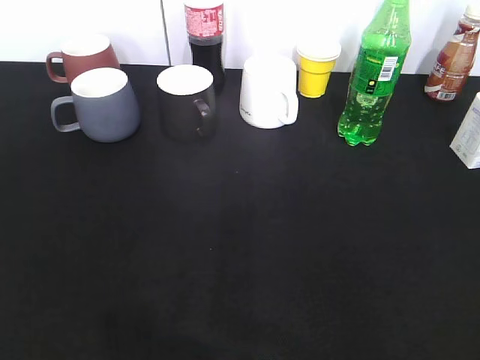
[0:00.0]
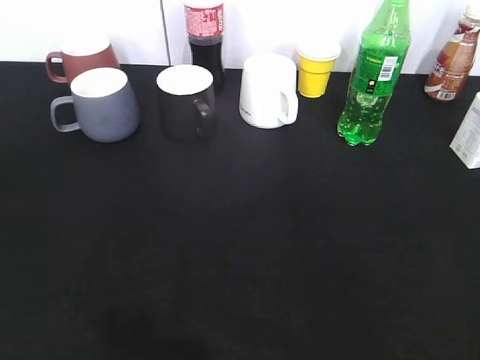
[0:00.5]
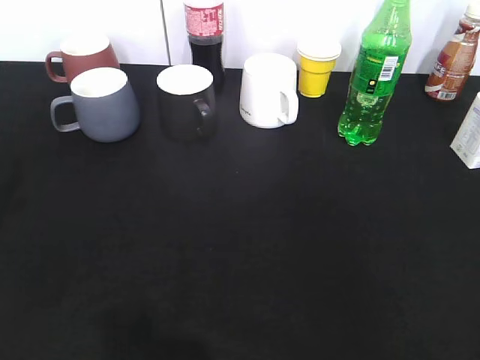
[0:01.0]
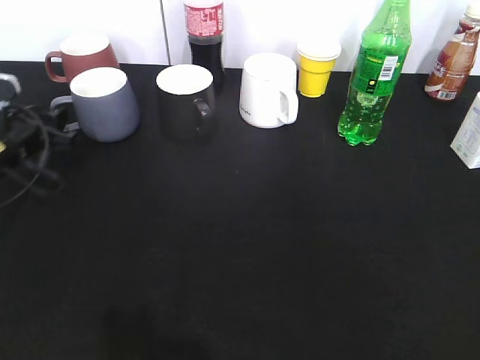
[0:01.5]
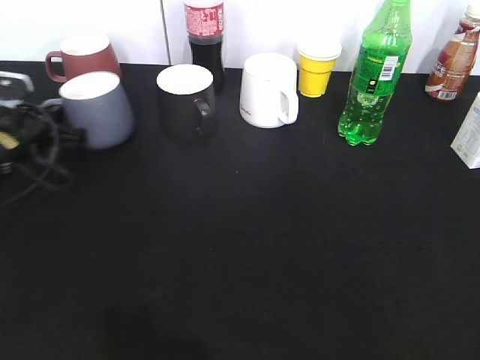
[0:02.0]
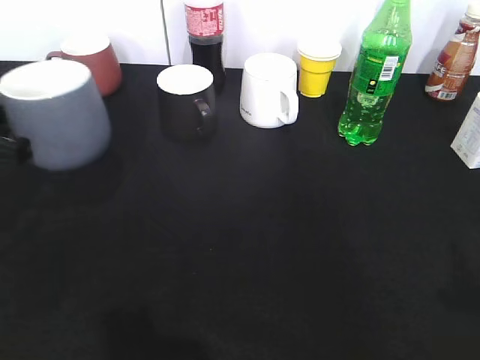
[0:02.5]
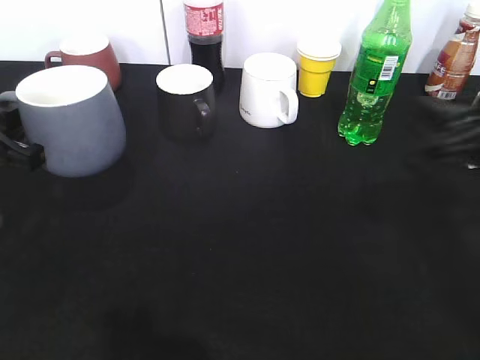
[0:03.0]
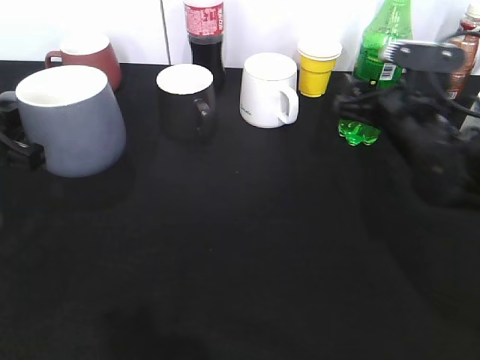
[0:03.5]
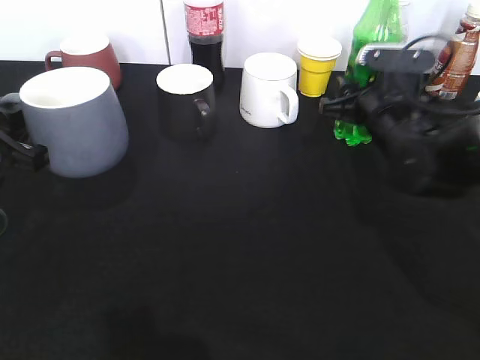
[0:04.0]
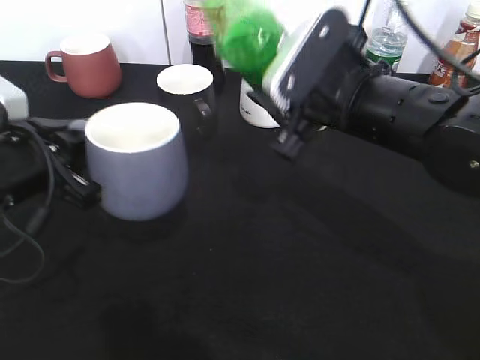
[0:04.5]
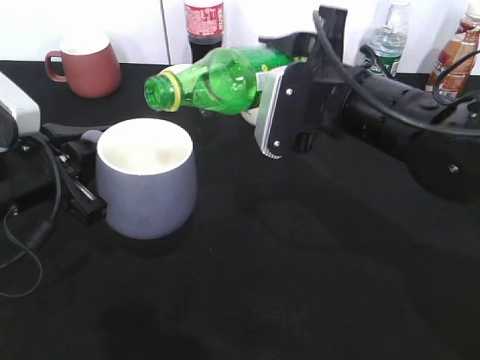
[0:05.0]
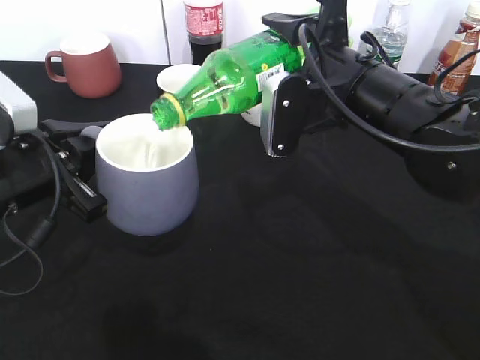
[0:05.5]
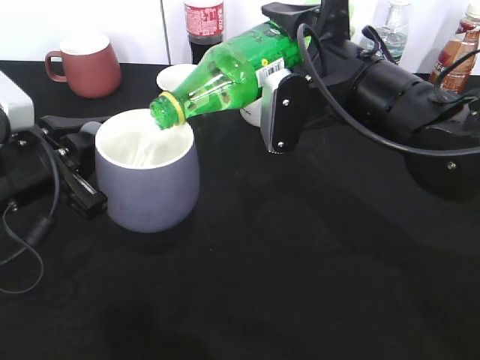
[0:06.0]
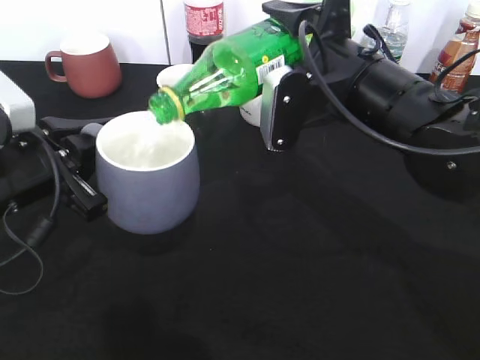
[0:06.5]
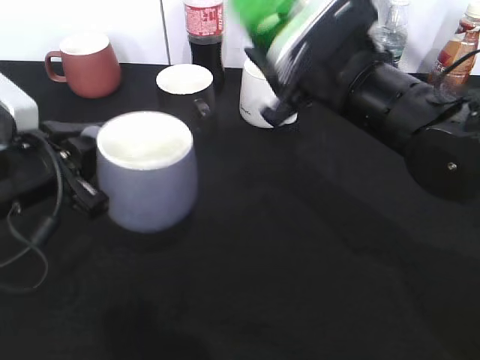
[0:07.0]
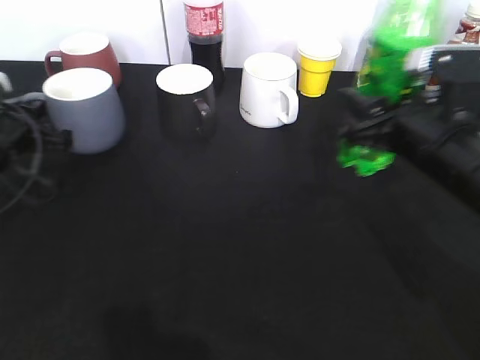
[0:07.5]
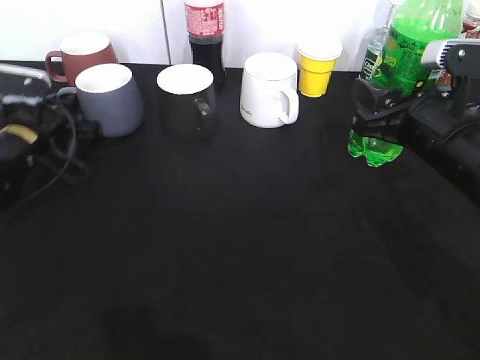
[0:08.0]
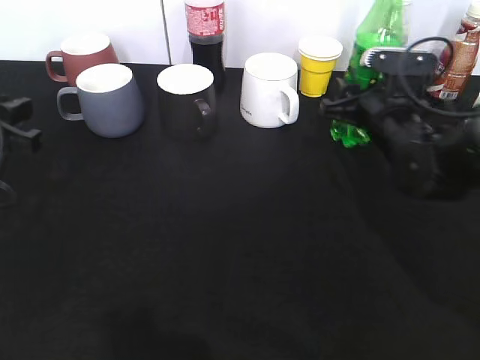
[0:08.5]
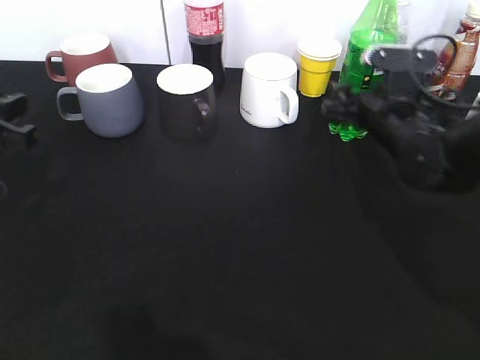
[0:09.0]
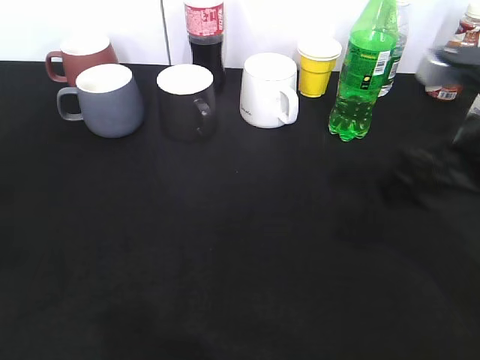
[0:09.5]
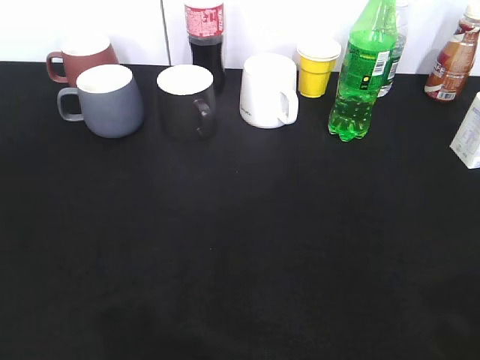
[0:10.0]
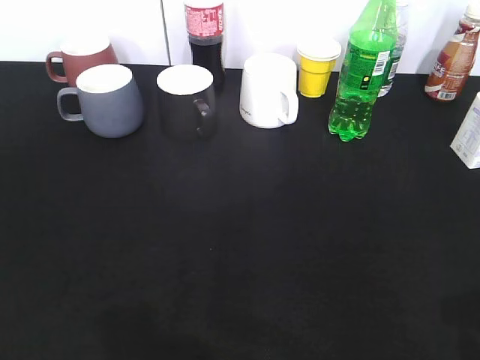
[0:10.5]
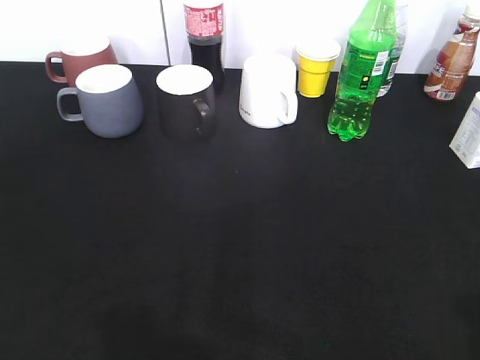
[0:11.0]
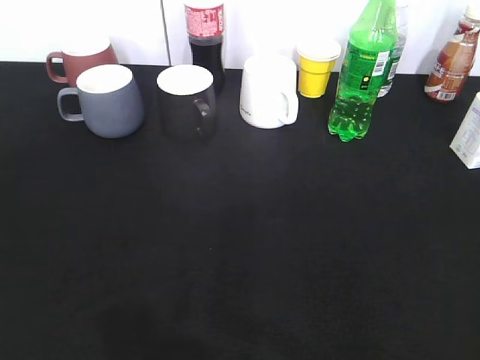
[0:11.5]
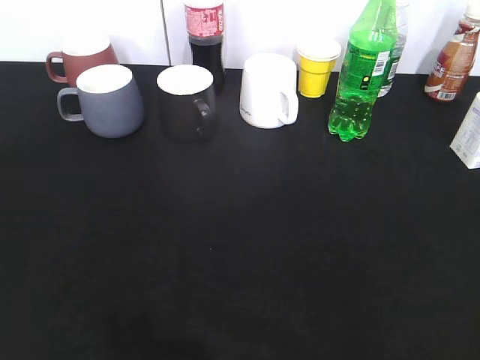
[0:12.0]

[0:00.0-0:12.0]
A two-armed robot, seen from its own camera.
Step, 2.0 to 2.5 s: Lift the grey cup with left gripper.
Step, 3.0 to 3.5 s: Grasp the bottle with sprite with right gripper.
Step, 4.0 to 6.5 s: Pour the sprite from bottle to cup with right gripper.
Step, 7.0 to 9.0 s: Place the sprite bottle on the table with right gripper.
0.0 to 2.0 s: The left gripper travels forward and downward by some 40 cm, and closes.
2.0 to 4.0 s: The left gripper is displaced backward and upward by some 15 cm. The right gripper is displaced forward by some 35 cm, and closes up.
4.0 to 6.0 s: The left gripper goes approximately 5 cm to the right, while the right gripper moves upward, to the left and backward, approximately 15 cm.
6.0 to 8.0 s: The left gripper moves forward, downward and to the left, roughly 20 cm. Meanwhile the right gripper is displaced to the right by approximately 10 cm.
8.0 to 10.0 s: The right gripper travels backward and upward by approximately 25 cm, and opens its fingers, while the left gripper heads backward and upward, covering some 40 cm, and opens.

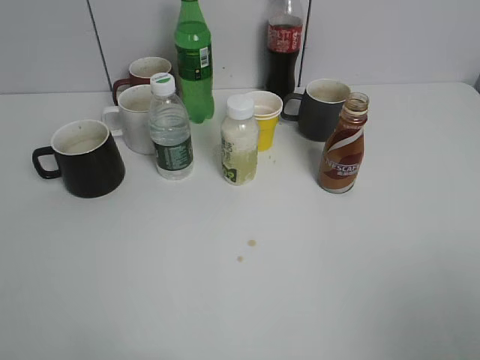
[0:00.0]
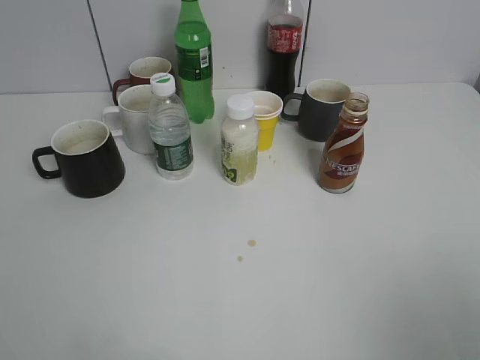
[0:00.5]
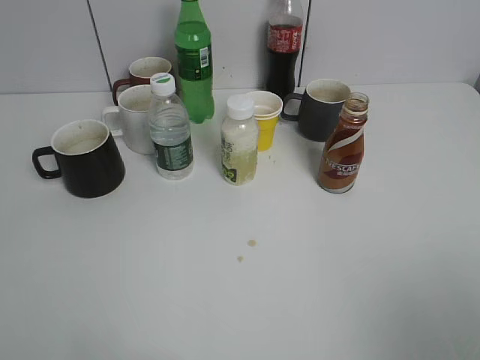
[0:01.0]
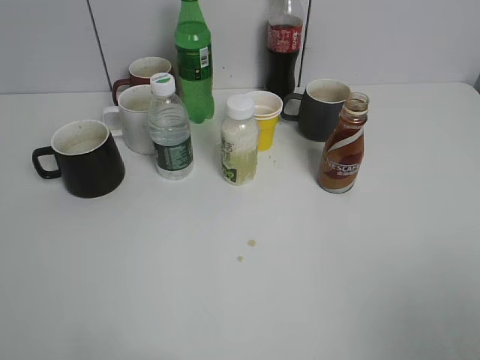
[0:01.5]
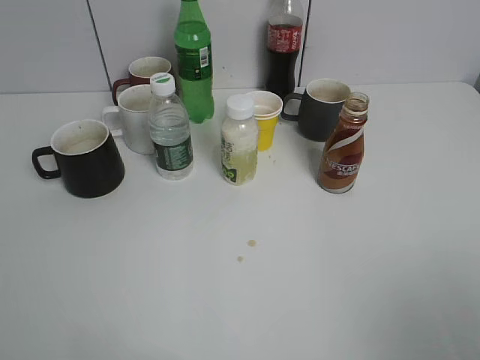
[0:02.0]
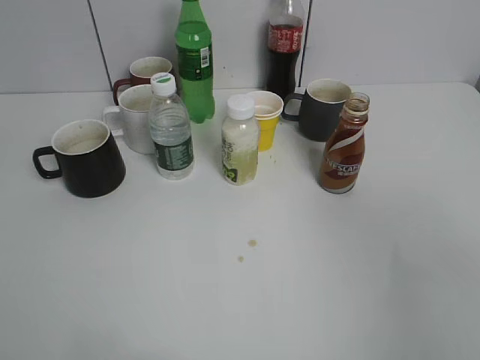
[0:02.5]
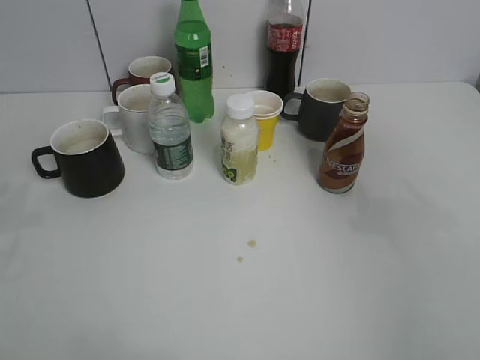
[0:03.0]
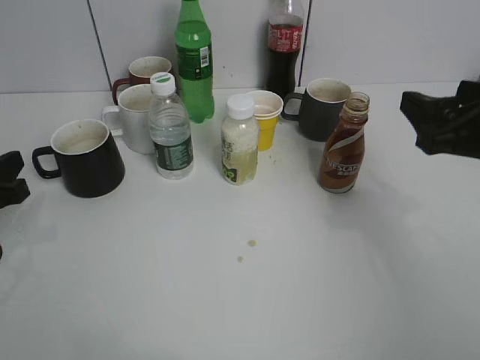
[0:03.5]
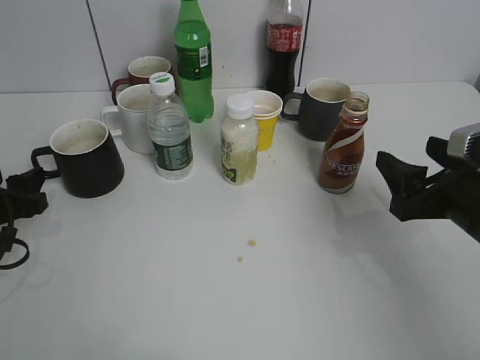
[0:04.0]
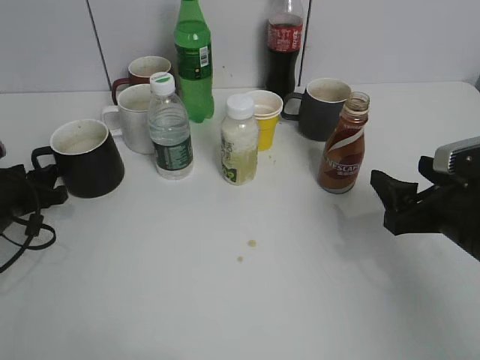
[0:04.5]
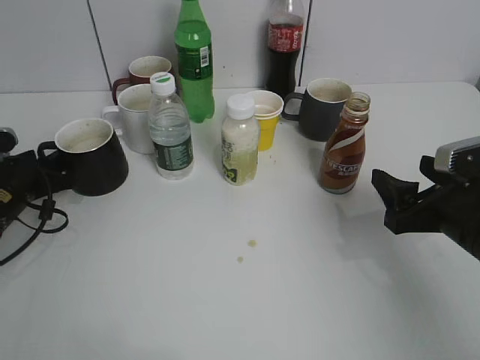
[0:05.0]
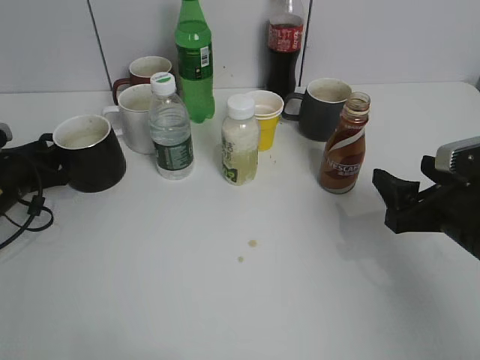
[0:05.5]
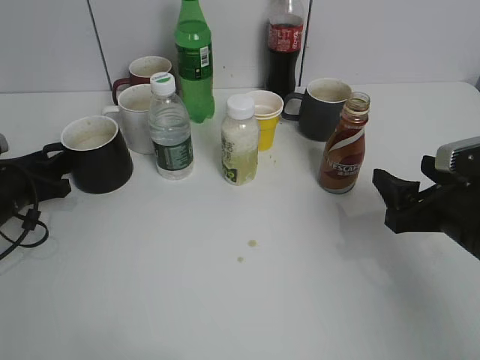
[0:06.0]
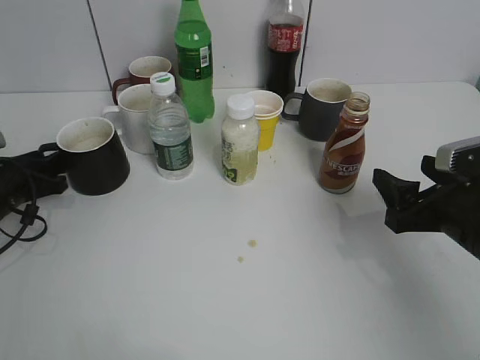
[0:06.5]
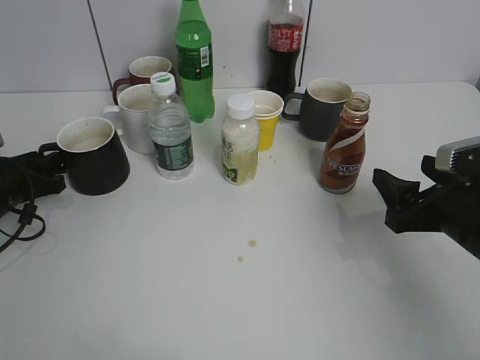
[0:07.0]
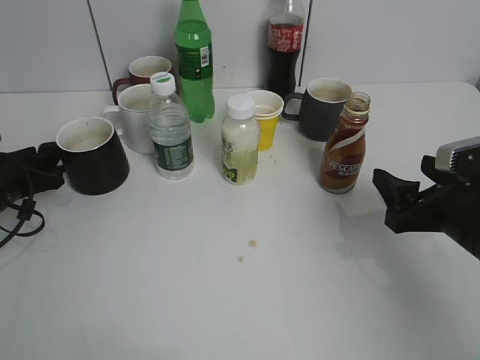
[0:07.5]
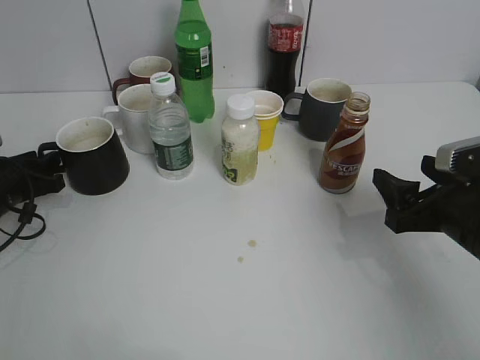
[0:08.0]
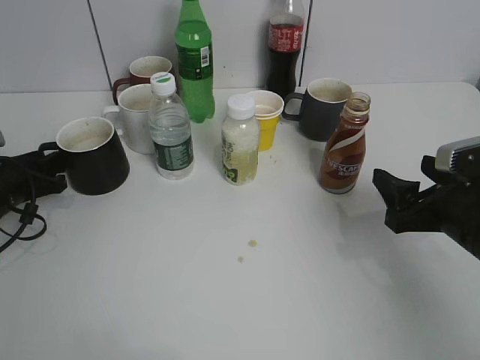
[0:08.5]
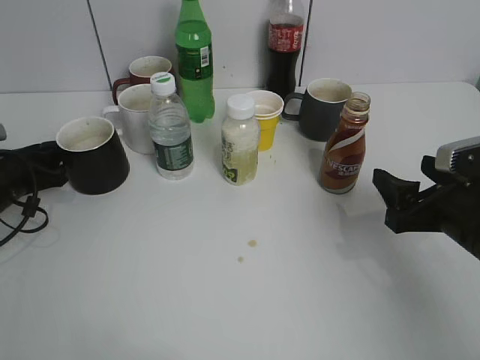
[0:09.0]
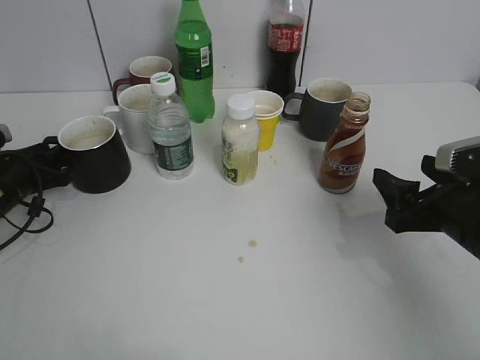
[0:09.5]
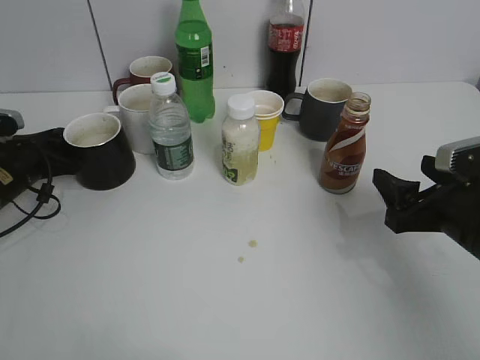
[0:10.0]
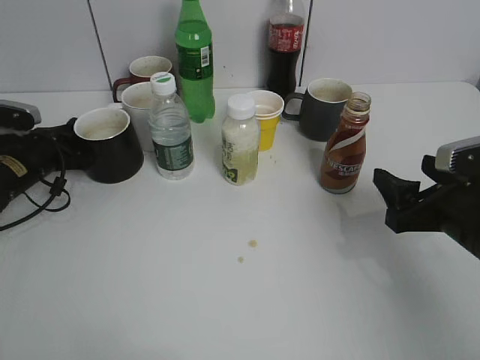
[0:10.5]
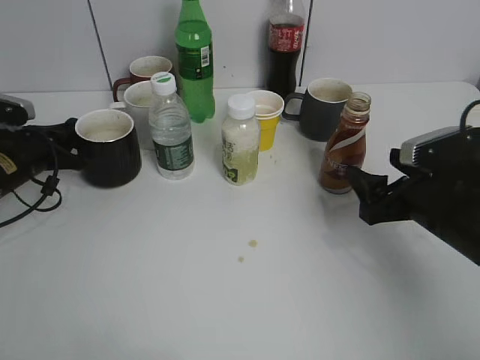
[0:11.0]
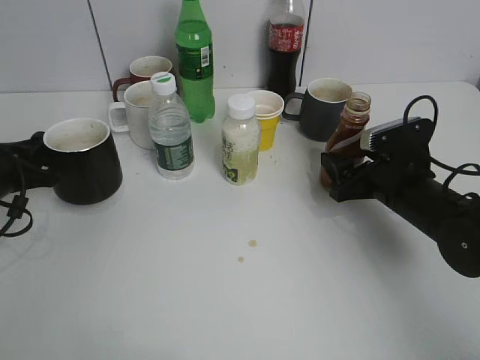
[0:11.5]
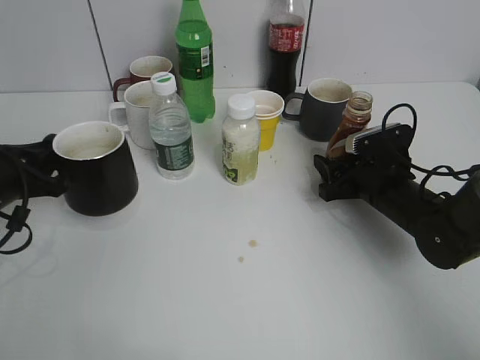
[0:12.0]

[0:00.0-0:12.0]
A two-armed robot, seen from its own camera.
Step, 2.0 to 10.5 s: Grasp the black cup with left gripper.
2.0 to 4.0 s: The two grippers go roughly 30 cm forward and downward. The left gripper opens its fingers.
4.0 to 6.0 s: The left gripper travels forward by about 5 cm.
6.0 to 10.0 s: There are only small adjustments of the grippers.
10.0 to 12.0 s: The left gripper is displaced backward and upward by some 10 cm, and closes up. The right gripper travels forward and downward by some 15 cm, and closes.

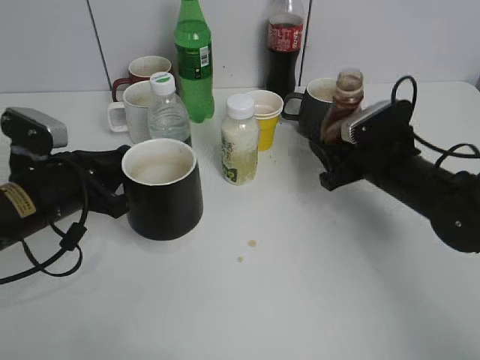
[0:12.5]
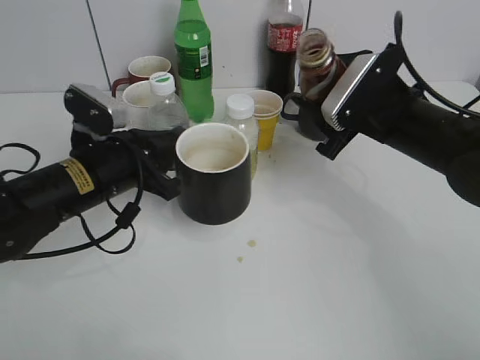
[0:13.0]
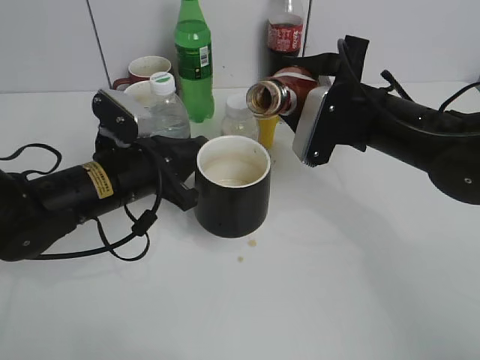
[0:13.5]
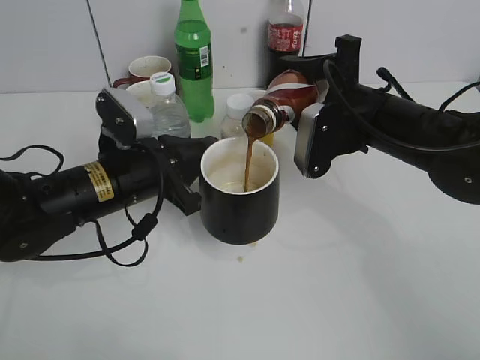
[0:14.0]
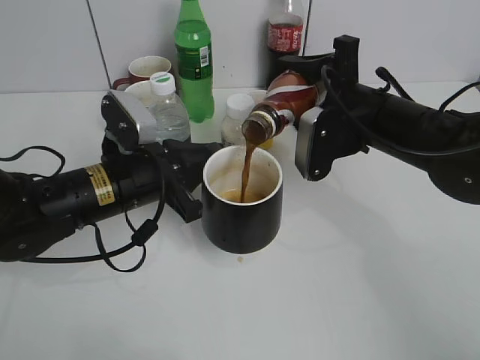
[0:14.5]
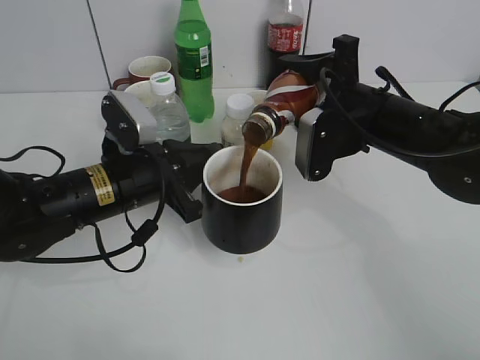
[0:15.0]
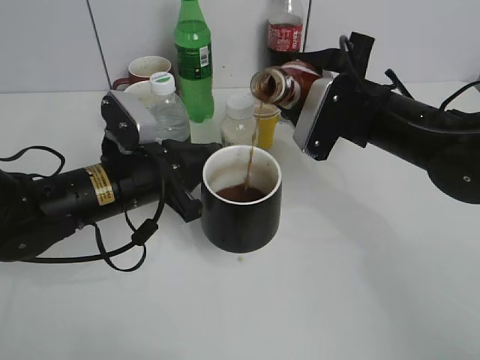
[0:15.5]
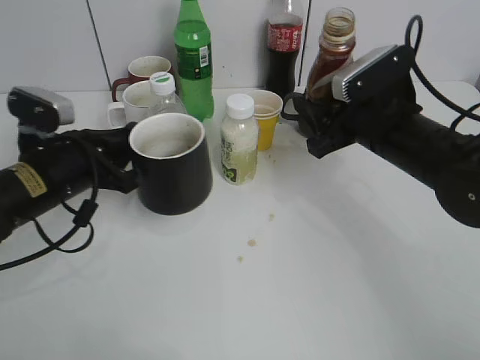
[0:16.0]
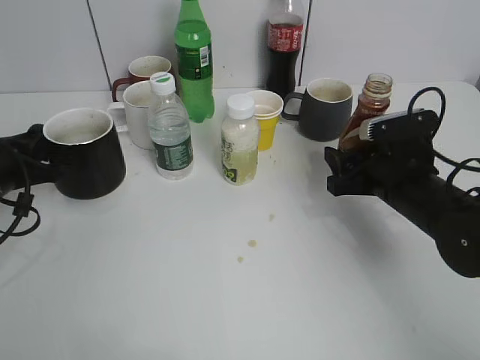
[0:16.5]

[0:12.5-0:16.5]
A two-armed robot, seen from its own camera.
Step, 12.5 to 15.5 s: Pour the coffee from bottle to cup with right gripper.
12.5 to 14.5 s: The right gripper heads upward and to the left, covering approximately 10 cm. The left gripper moves to the right, roughly 10 cm.
14.5 to 16.5 s: The right gripper is displaced downward and to the right by some 10 cm, while the left gripper heads to the left, covering roughly 15 cm.
